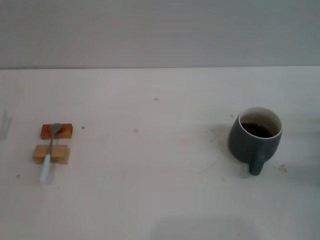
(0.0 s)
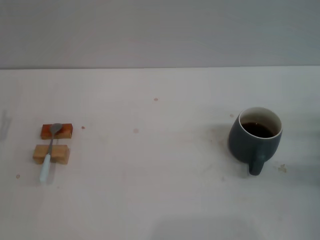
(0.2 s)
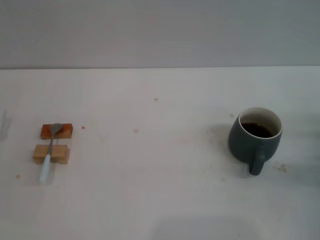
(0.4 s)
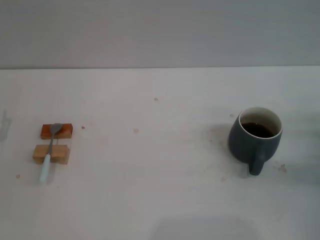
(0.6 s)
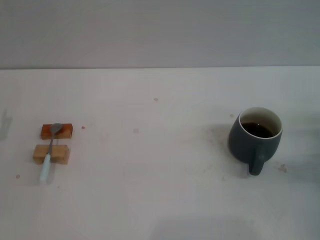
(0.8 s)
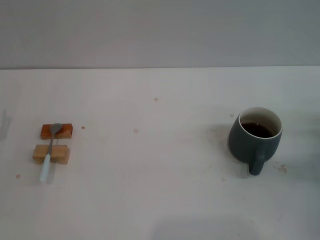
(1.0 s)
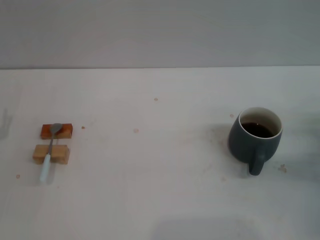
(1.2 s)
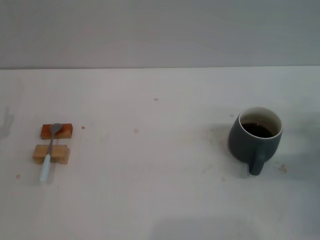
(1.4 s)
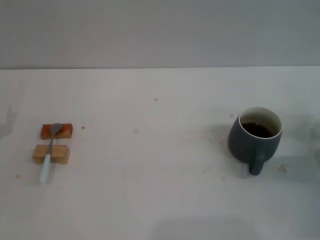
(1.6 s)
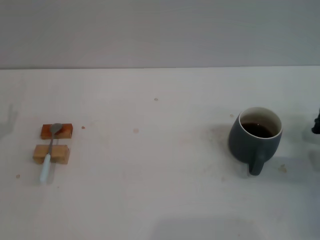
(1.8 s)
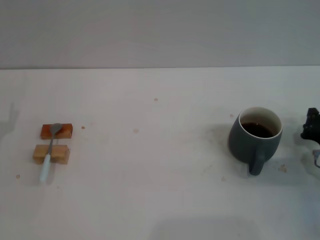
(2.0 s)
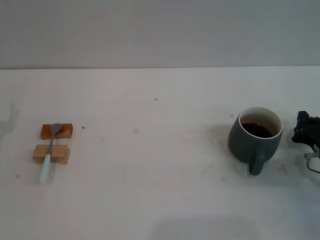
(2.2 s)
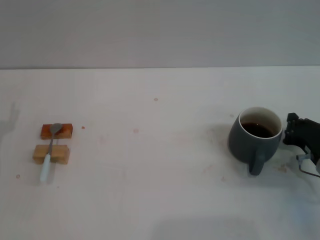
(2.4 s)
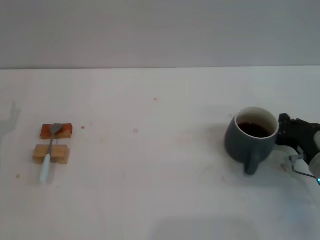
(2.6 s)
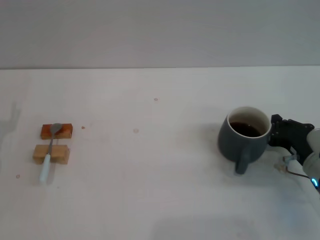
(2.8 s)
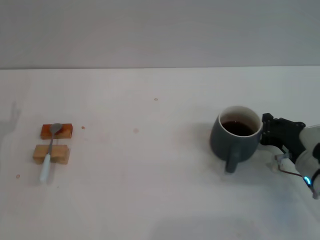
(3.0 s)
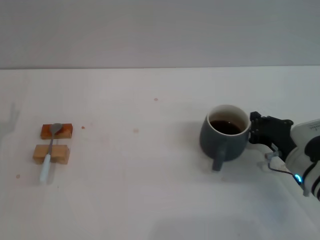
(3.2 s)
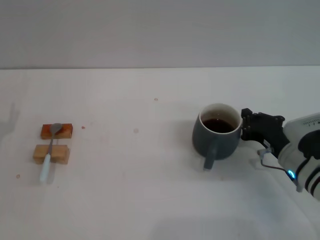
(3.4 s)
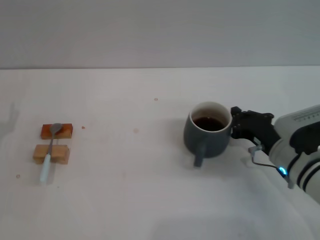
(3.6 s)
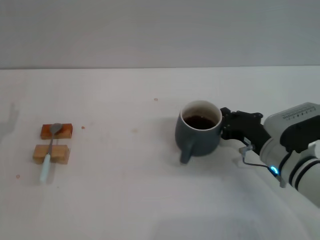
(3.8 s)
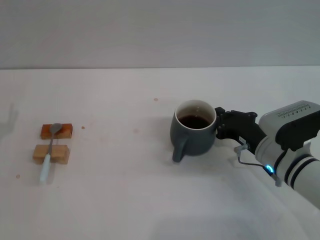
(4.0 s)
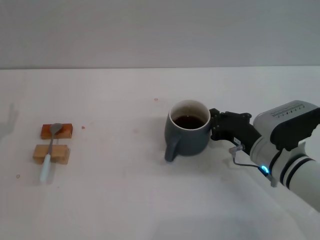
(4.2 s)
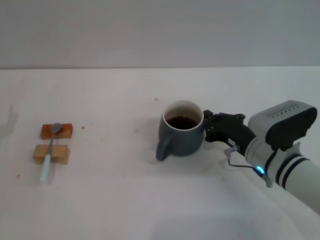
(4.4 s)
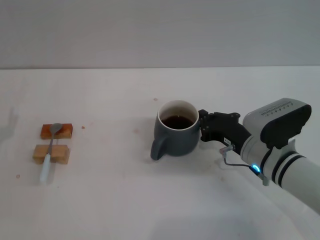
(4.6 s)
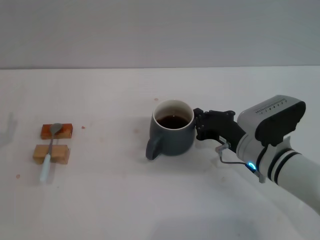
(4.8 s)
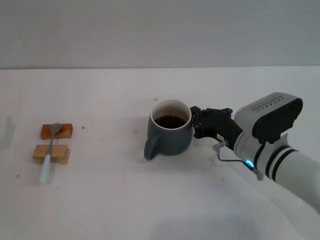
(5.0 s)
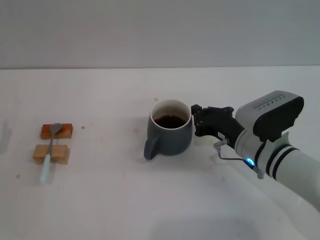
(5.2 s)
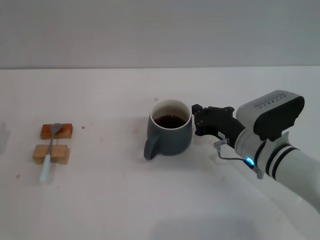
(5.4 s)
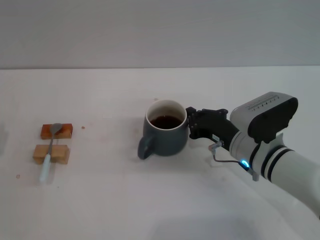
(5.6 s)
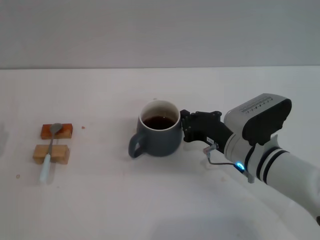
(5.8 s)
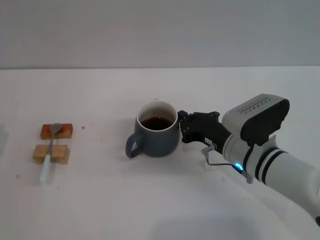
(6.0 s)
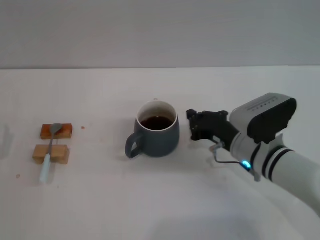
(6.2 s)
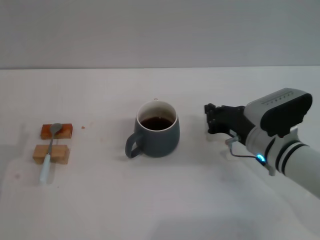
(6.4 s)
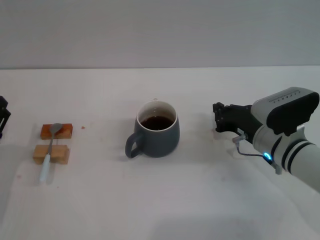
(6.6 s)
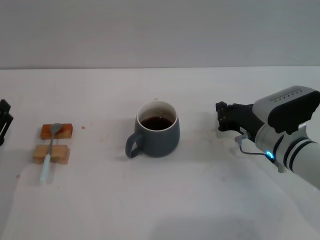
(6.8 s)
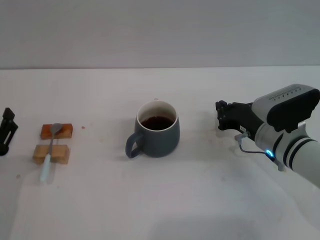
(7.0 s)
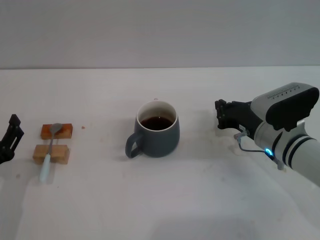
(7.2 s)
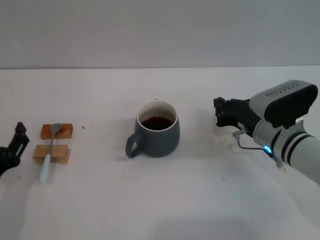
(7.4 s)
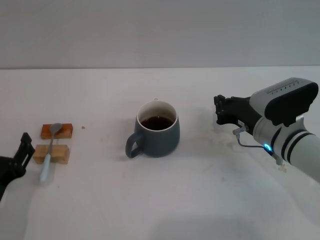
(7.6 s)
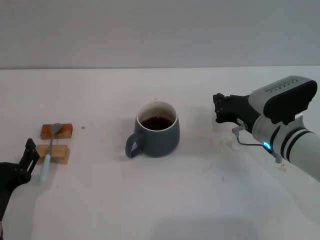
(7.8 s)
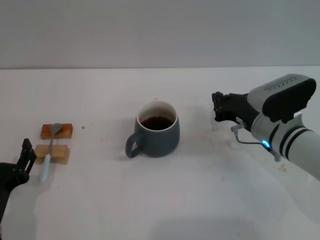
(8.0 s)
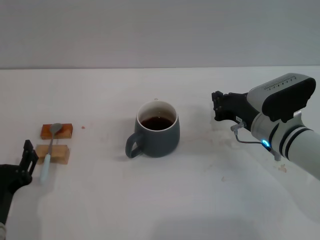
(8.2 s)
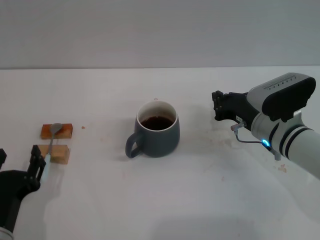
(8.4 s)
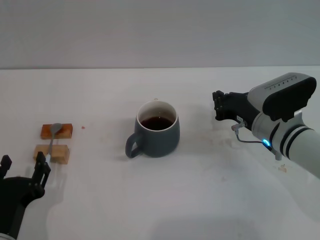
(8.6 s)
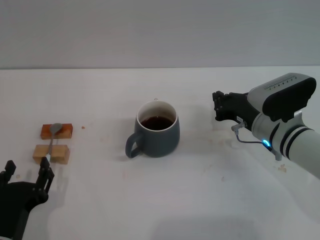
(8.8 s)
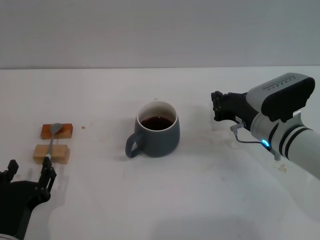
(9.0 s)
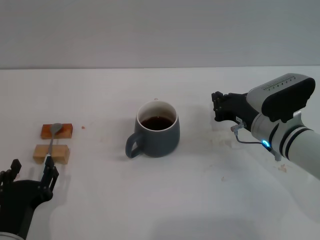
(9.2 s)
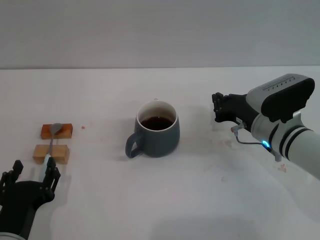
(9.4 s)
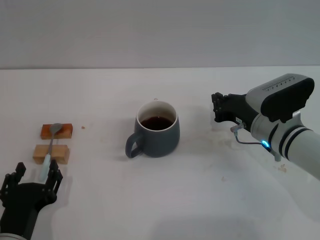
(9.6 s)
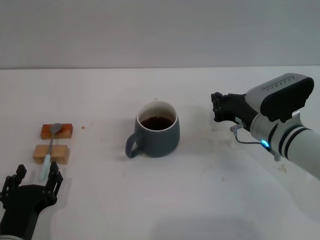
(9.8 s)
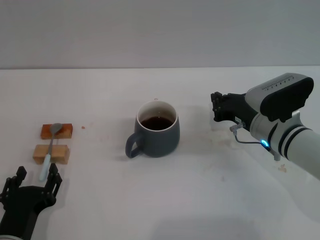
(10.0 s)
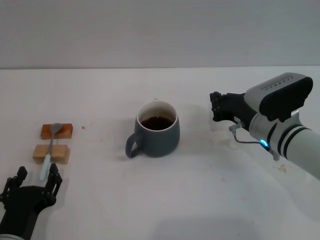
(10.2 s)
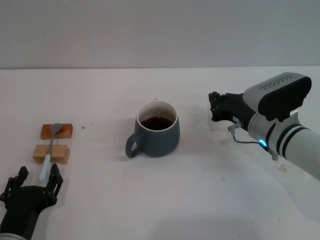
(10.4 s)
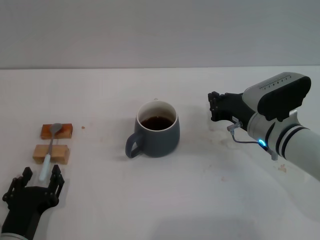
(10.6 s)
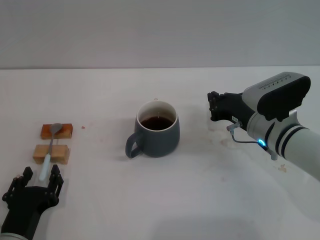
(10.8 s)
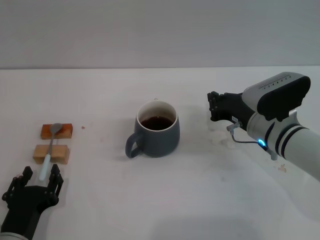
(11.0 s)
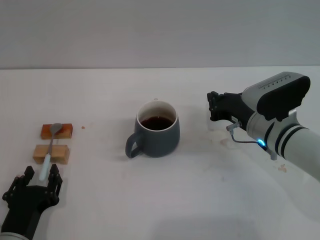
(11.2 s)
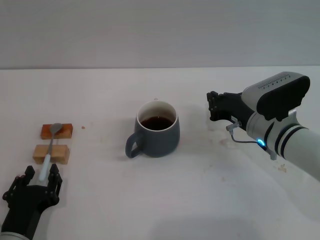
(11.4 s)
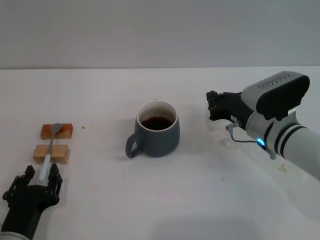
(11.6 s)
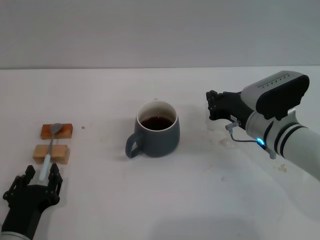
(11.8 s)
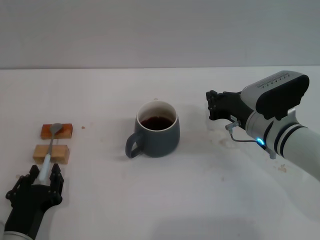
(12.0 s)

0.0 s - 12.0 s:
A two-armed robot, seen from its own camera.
Task of the whole recording: Move the grey cup to the center, lift the blue spoon, stir it three times in the cup, and put the spoon into the cup.
Step, 0.0 s - 6.6 s: Move the cup with coffee to the center of view with the right gripper.
1.6 s - 3.0 s: The right gripper moves to the left, approximately 5 cm.
3.0 s - 4.4 s: The right gripper is displaced to the left by about 5 cm.
4.4 s - 6.0 s: The grippers stay close to where they were, moving slightly.
6.0 s - 7.6 s: The right gripper moves some 5 cm; the left gripper travels to the right and backward by approximately 10 cm.
7.6 s - 9.0 s: The left gripper shifts by about 5 cm.
9.0 s - 10.4 s: The grippers make only small movements.
10.4 s - 12.0 s: Both grippers stay put.

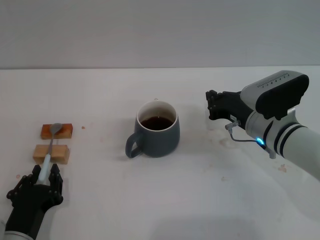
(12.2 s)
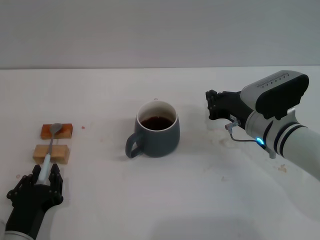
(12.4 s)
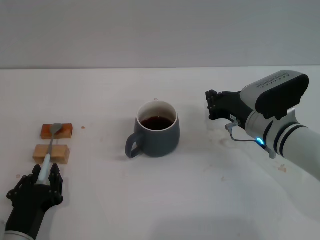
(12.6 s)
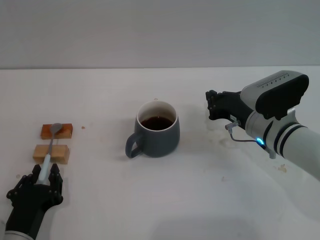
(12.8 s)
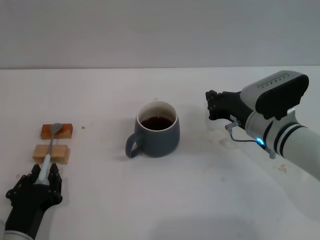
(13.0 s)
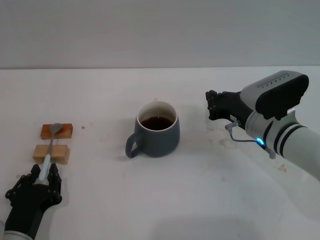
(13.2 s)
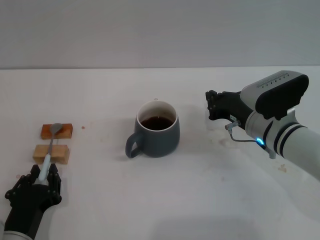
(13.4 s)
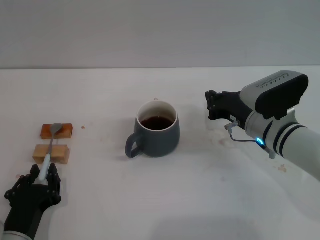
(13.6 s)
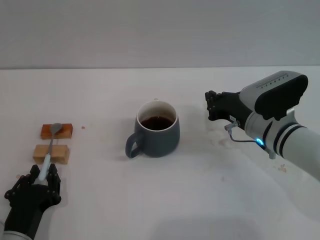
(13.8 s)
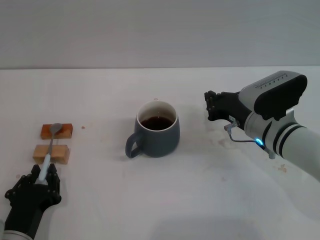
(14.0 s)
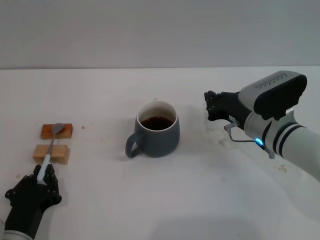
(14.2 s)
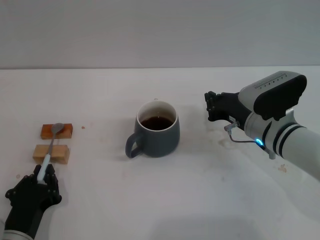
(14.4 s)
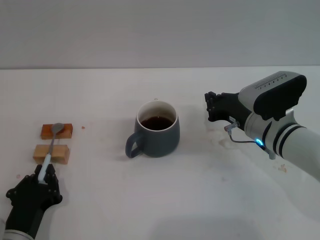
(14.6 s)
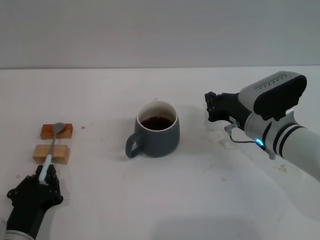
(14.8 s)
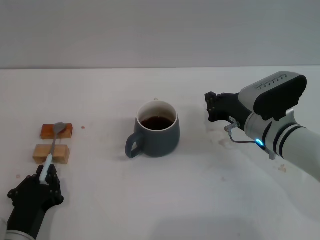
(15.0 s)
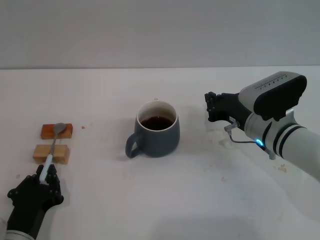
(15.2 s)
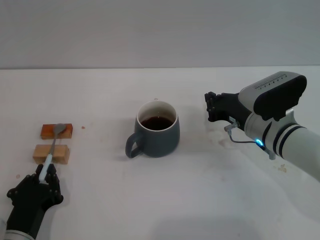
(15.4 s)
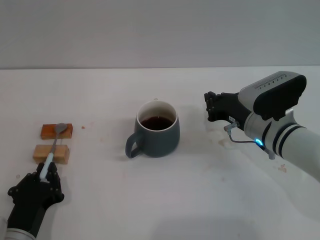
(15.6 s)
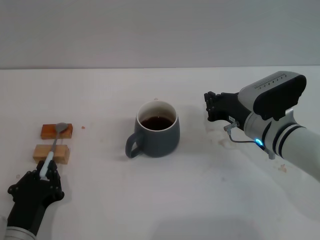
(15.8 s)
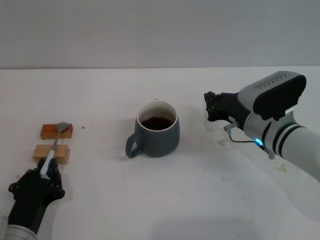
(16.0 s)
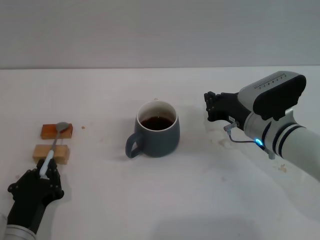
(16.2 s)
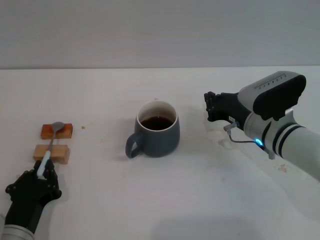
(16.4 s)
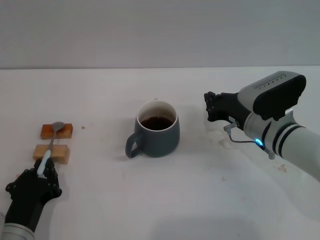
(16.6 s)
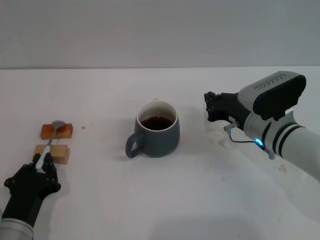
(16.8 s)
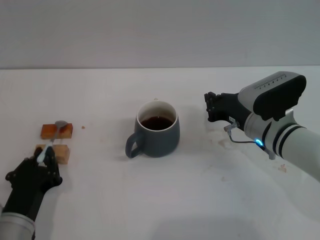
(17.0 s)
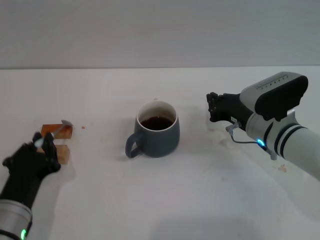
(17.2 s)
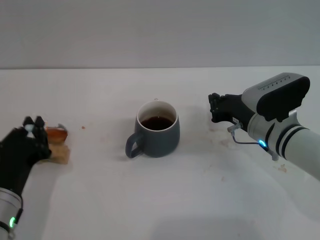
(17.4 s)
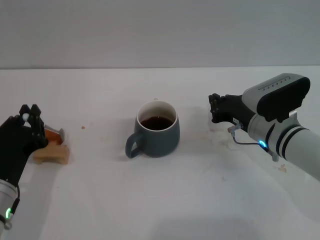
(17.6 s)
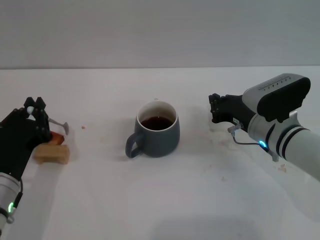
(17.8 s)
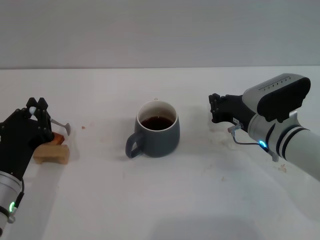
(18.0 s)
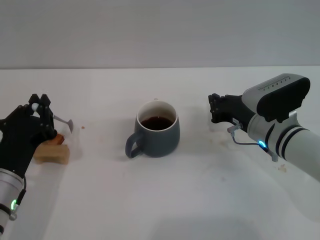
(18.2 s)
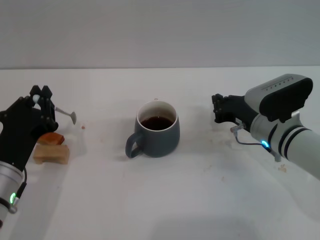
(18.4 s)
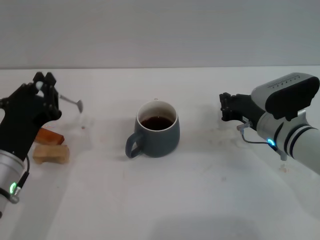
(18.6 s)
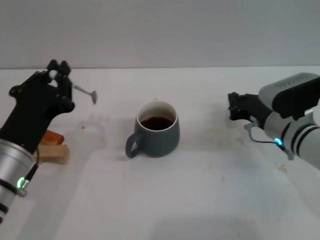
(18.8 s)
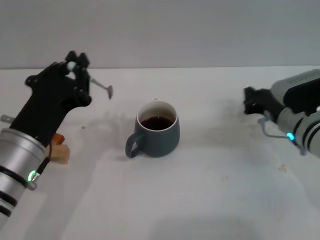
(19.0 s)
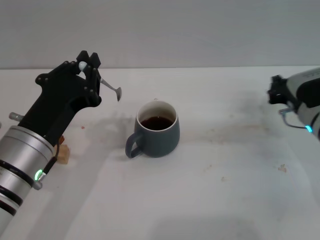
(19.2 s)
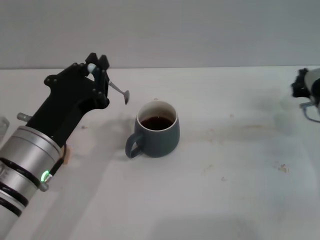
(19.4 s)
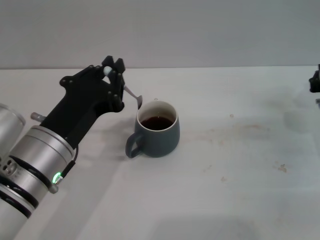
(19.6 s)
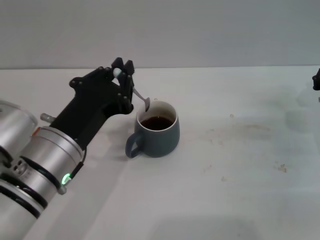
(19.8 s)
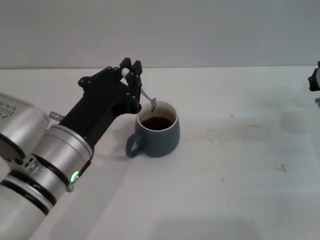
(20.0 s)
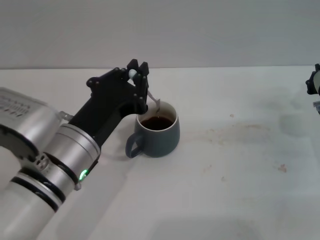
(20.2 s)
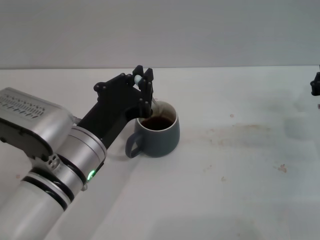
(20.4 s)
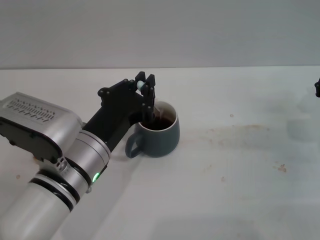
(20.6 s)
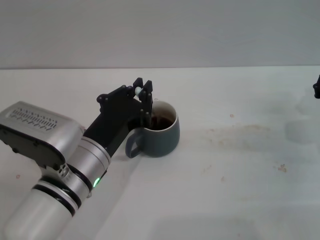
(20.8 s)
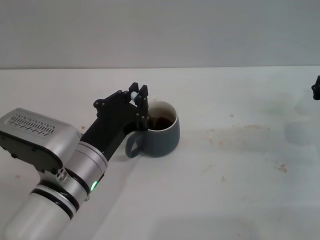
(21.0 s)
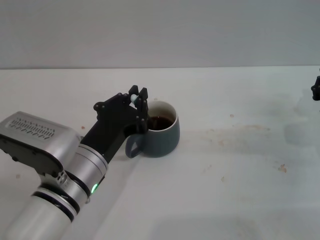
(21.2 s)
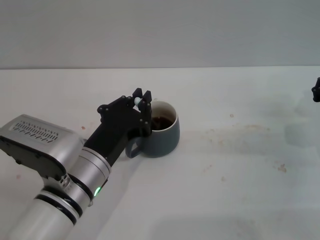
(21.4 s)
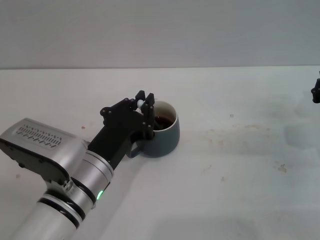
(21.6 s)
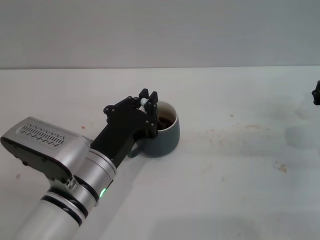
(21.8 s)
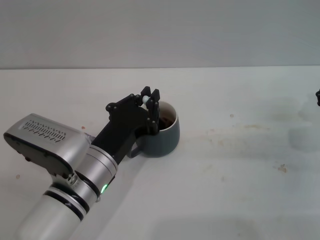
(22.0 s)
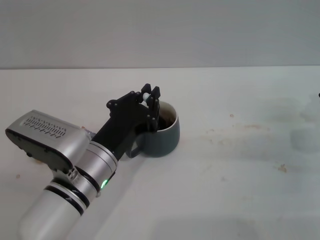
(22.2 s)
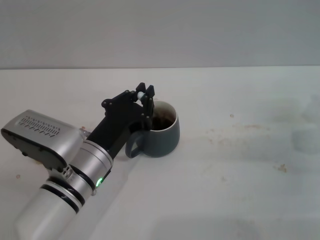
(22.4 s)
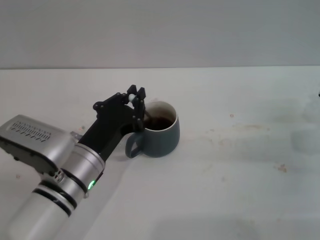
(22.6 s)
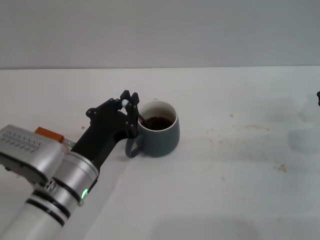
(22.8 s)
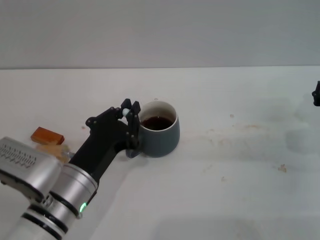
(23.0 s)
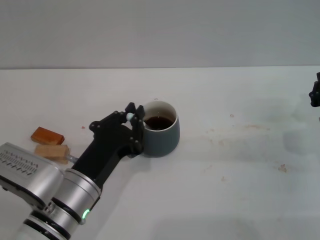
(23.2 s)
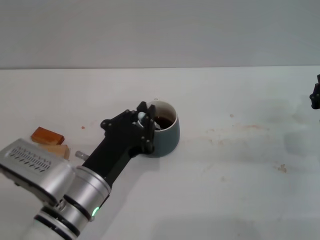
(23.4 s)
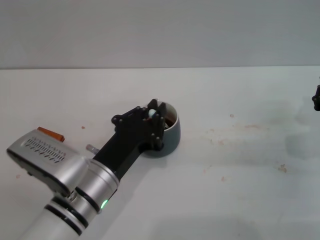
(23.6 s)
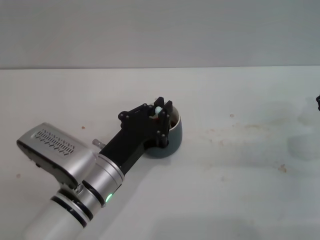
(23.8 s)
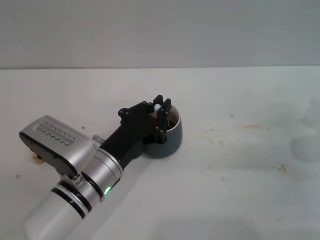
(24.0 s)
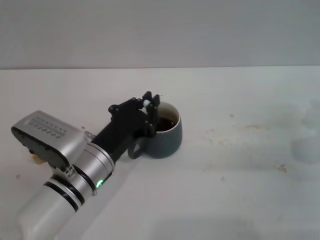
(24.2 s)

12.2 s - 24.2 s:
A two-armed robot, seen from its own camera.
Task of the whole recording: Move the grey cup to the center, lift the blue spoon, stir it three times in the cup, and put the spoon into the cup.
Step, 12.2 s - 18.0 s: Pick up the spoon with the left gripper.
12.2 s - 16.6 s: Neither gripper changes place.
16.6 s - 18.2 s: The left gripper moves upward, approximately 5 cm.
18.2 s - 19.8 s: The left gripper moves upward and to the right, some 10 cm. The right gripper is displaced to the right by about 10 cm.
19.8 s - 21.2 s: The left gripper shifts about 5 cm downward.
21.2 s - 24.2 s: The grippers move only a little.
